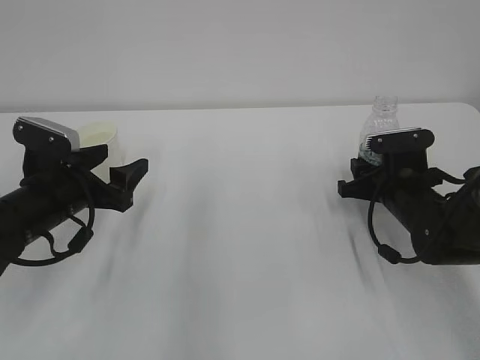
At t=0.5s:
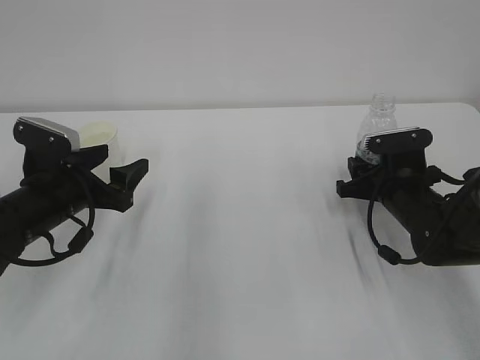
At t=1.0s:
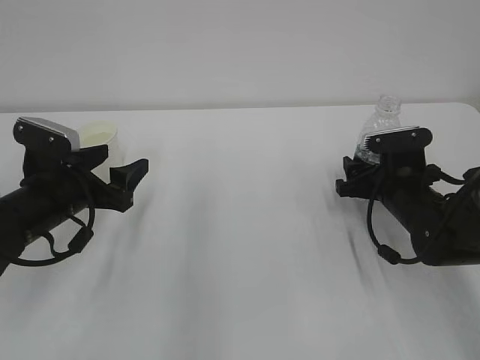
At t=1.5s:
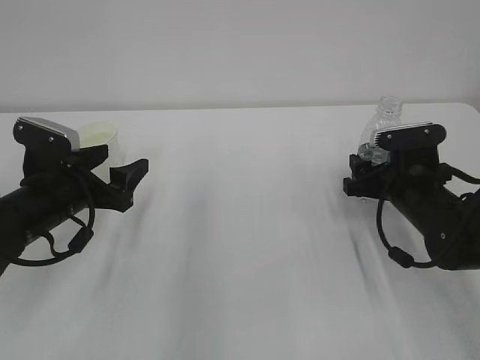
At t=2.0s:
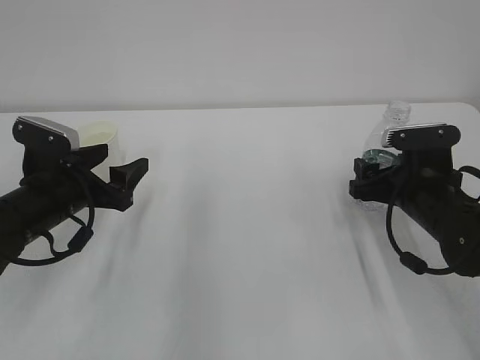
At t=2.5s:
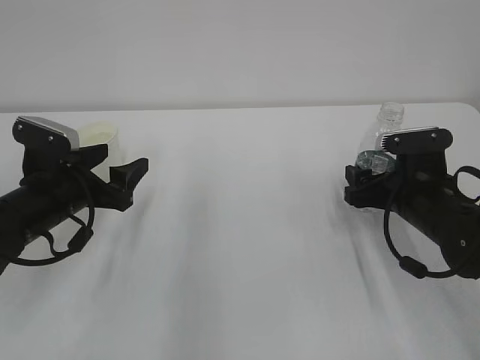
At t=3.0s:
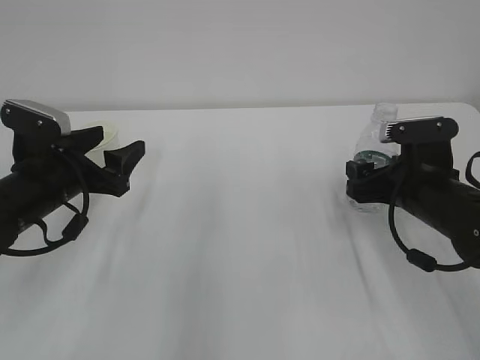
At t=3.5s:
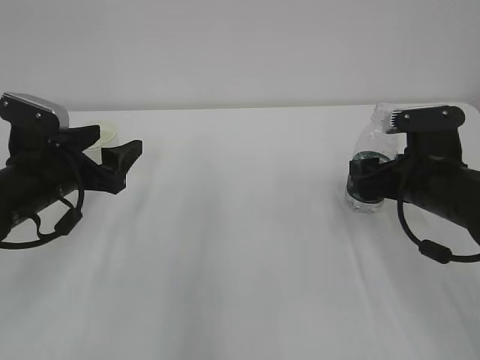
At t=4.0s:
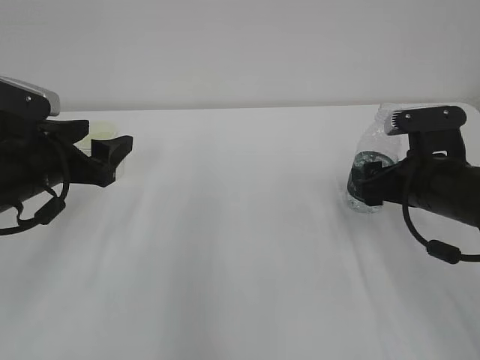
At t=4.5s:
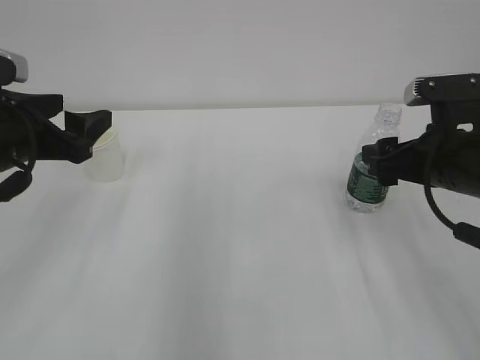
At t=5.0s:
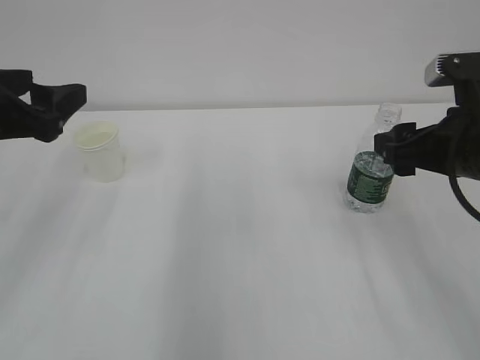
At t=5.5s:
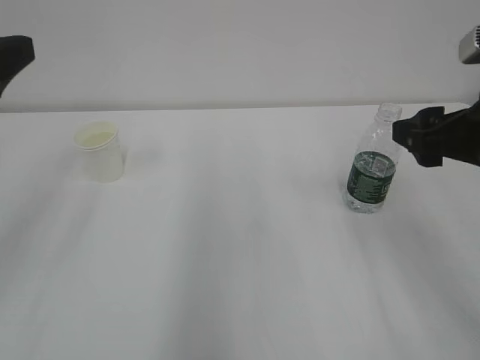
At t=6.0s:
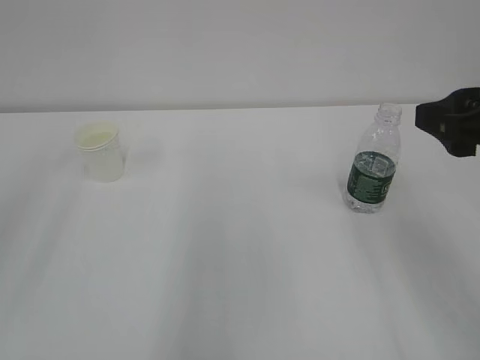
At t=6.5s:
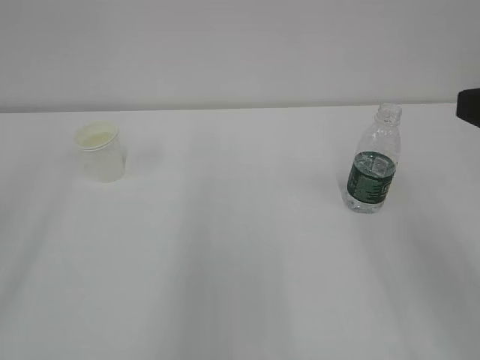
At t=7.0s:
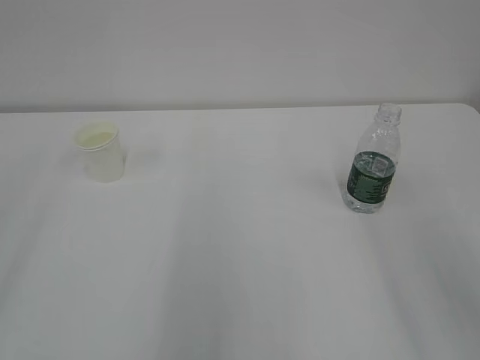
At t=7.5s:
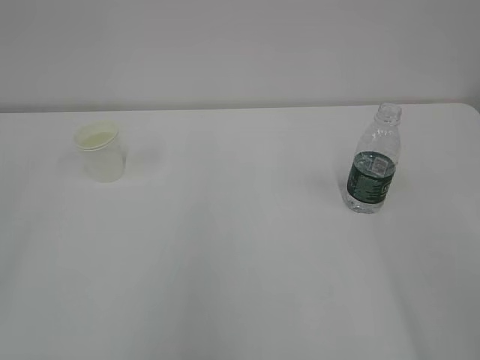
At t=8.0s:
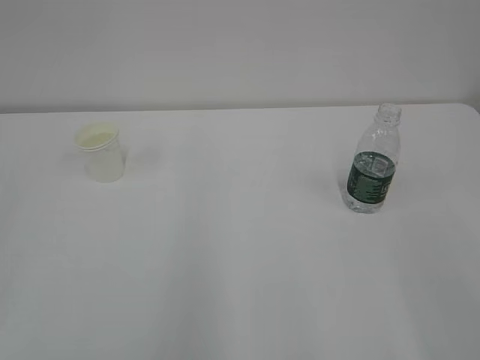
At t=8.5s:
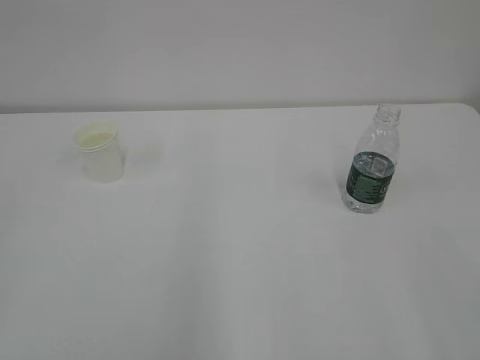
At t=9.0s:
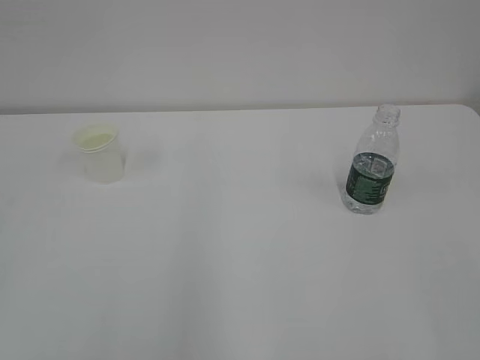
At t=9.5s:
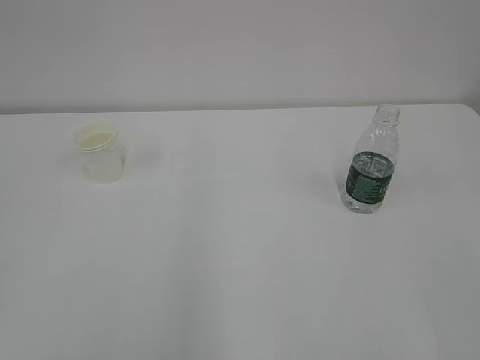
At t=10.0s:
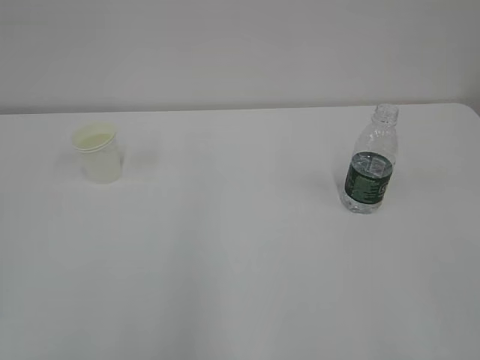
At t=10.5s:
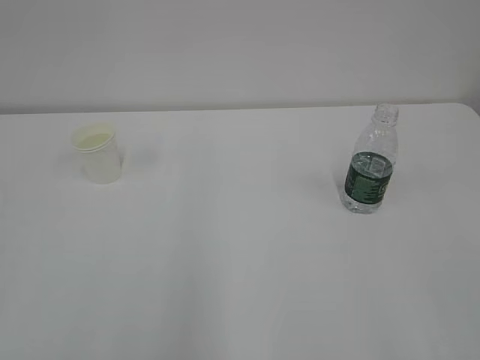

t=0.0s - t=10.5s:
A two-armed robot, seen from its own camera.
t=0.0s - t=2.0s: The right gripper opens.
t=2.0s - t=4.0s: The left gripper goes some 5 cm upward.
t=4.0s - t=6.5s: The two grippers go approximately 25 cm upward and backward.
